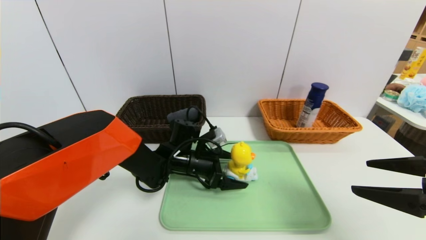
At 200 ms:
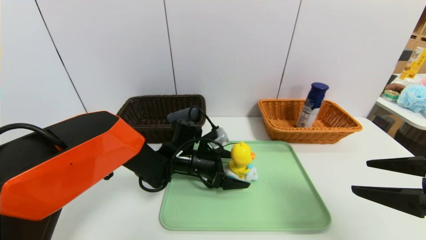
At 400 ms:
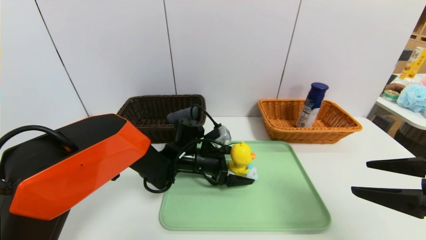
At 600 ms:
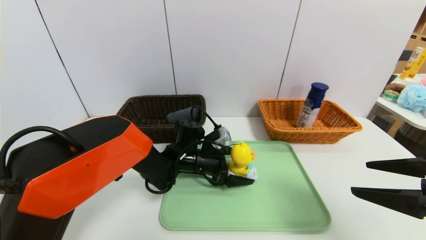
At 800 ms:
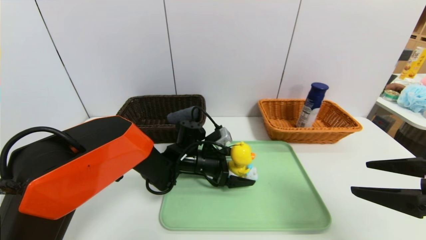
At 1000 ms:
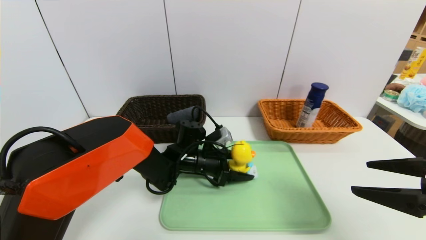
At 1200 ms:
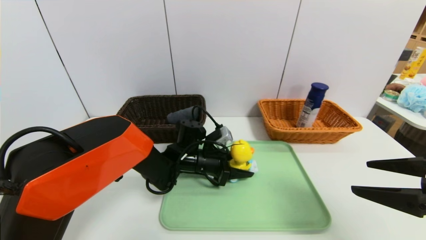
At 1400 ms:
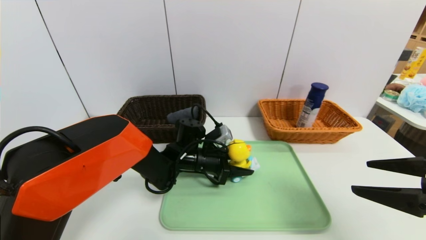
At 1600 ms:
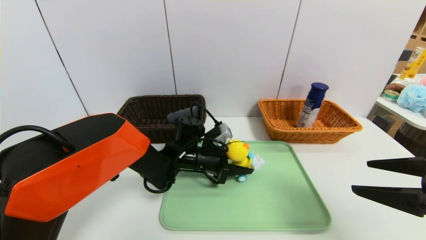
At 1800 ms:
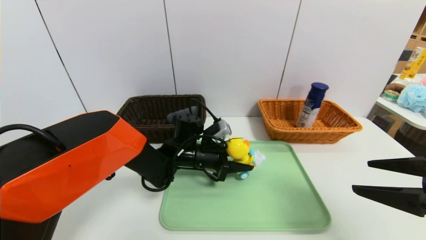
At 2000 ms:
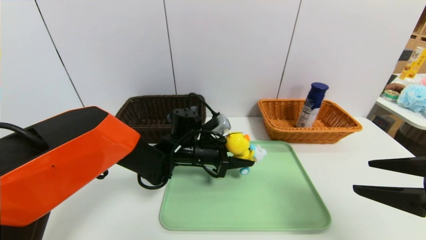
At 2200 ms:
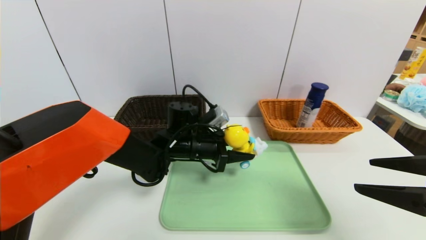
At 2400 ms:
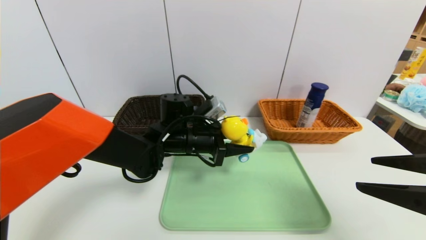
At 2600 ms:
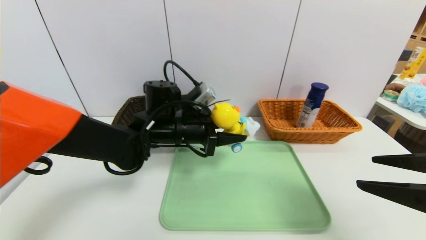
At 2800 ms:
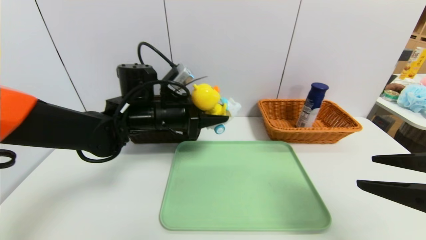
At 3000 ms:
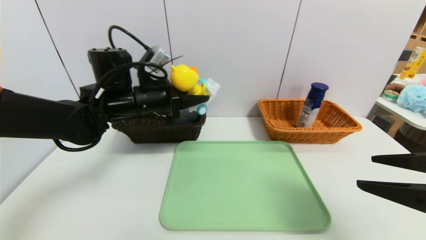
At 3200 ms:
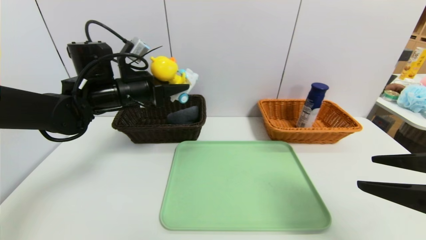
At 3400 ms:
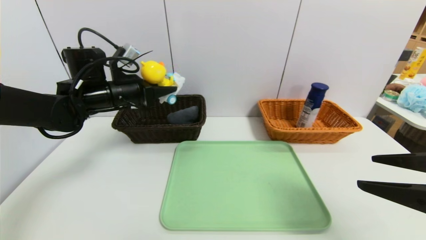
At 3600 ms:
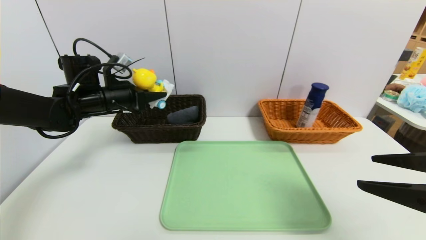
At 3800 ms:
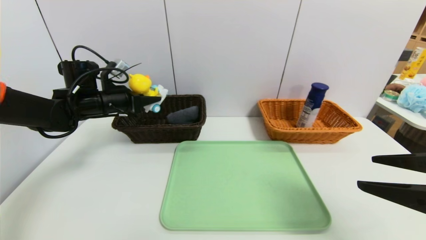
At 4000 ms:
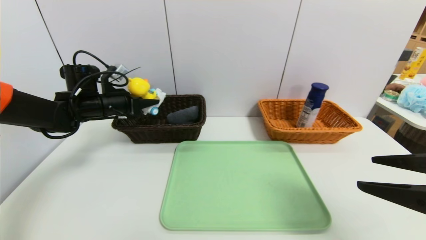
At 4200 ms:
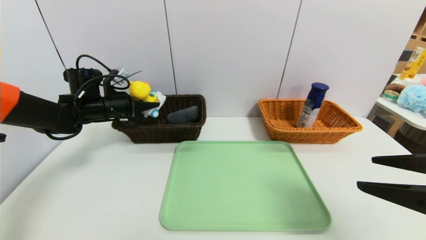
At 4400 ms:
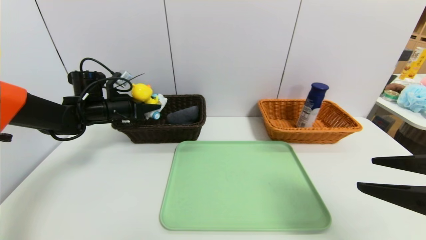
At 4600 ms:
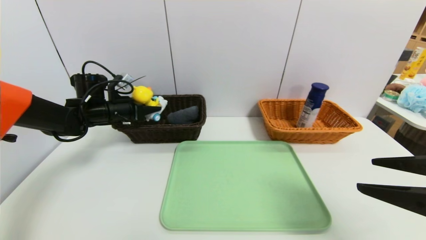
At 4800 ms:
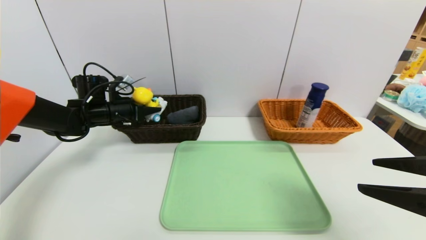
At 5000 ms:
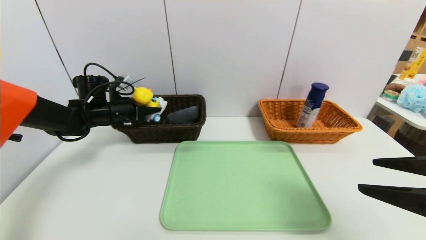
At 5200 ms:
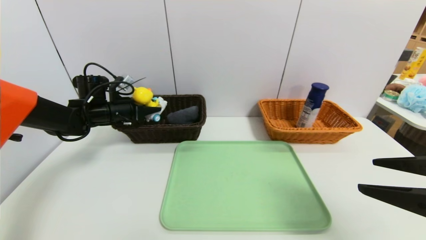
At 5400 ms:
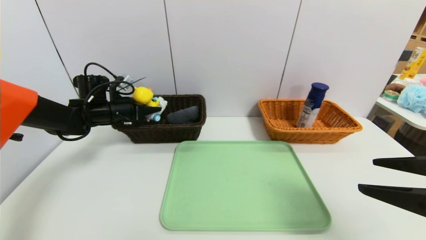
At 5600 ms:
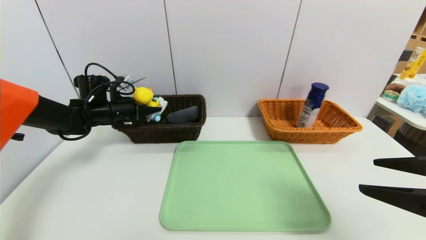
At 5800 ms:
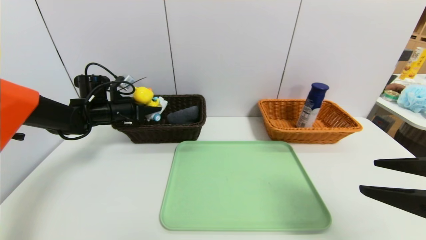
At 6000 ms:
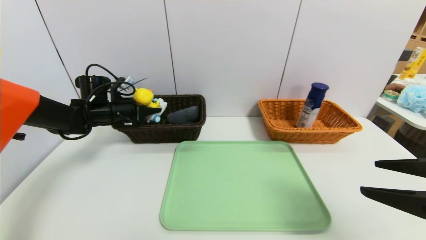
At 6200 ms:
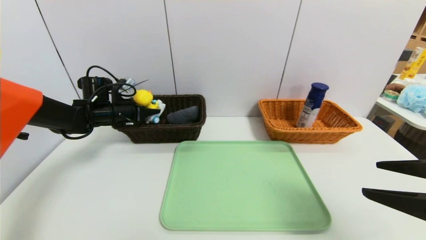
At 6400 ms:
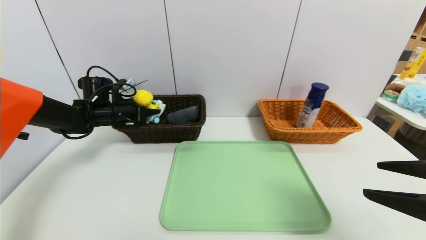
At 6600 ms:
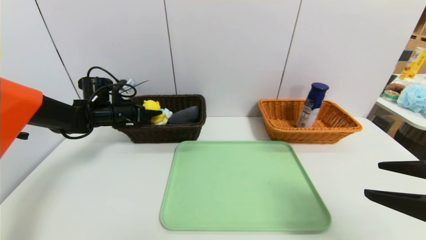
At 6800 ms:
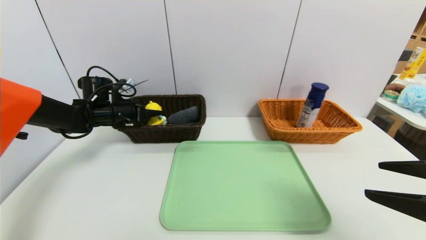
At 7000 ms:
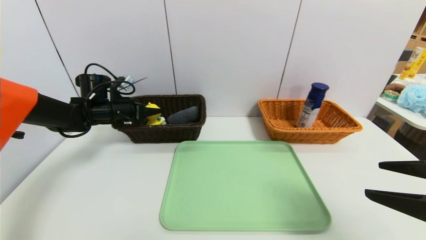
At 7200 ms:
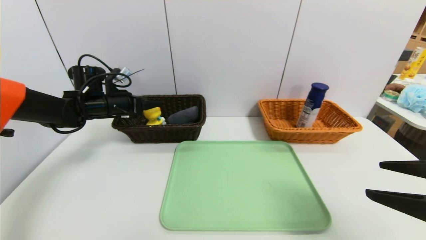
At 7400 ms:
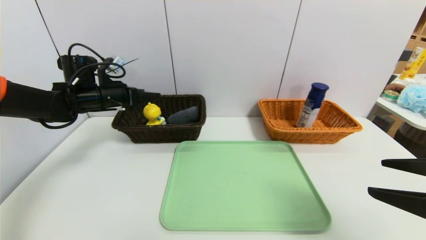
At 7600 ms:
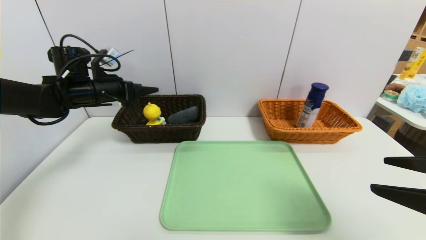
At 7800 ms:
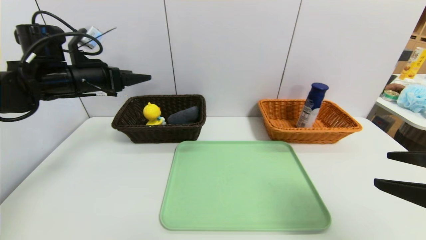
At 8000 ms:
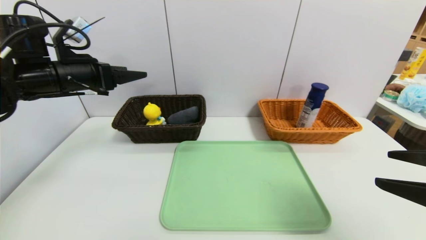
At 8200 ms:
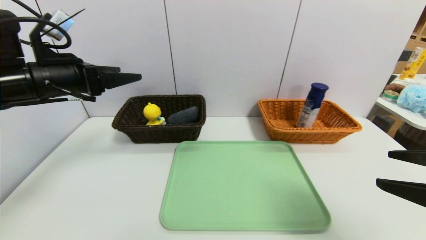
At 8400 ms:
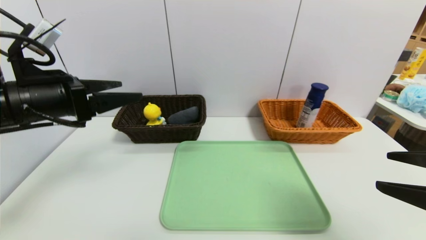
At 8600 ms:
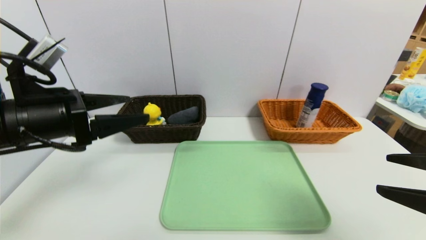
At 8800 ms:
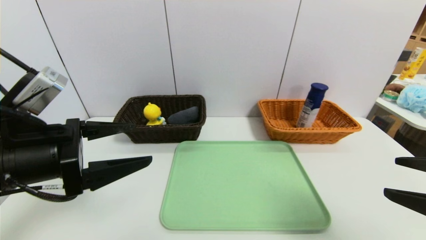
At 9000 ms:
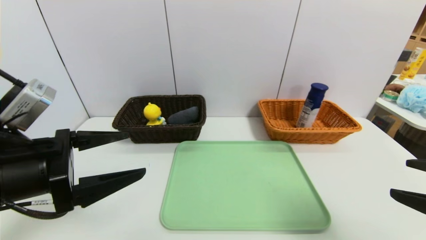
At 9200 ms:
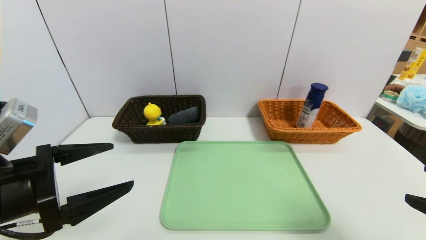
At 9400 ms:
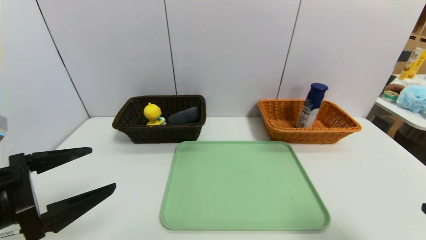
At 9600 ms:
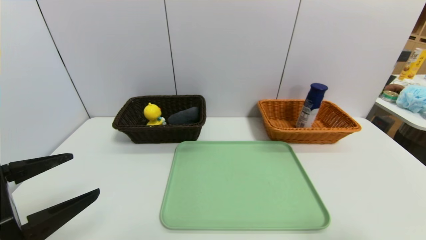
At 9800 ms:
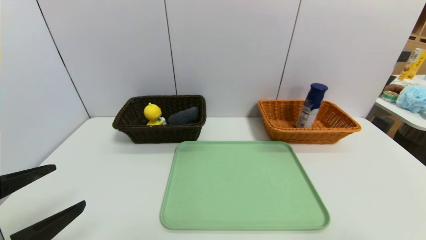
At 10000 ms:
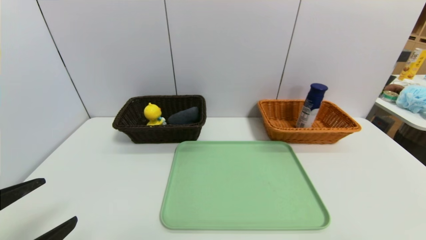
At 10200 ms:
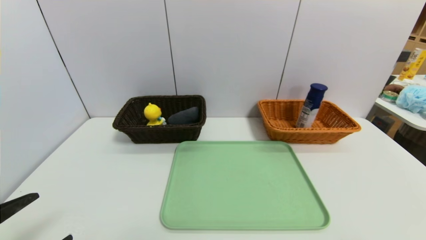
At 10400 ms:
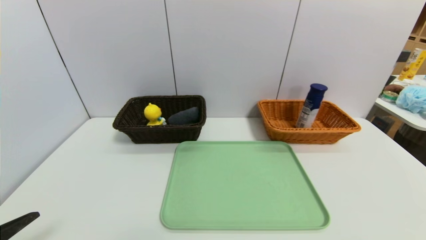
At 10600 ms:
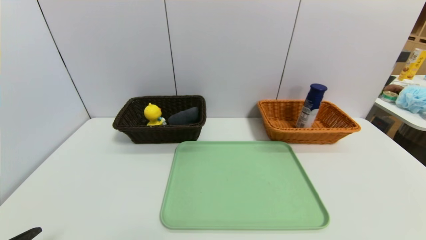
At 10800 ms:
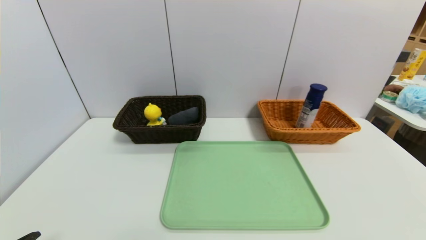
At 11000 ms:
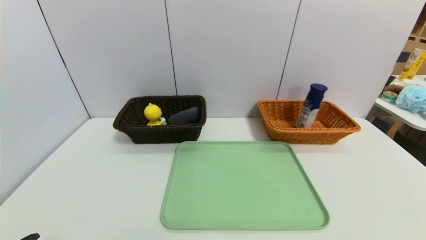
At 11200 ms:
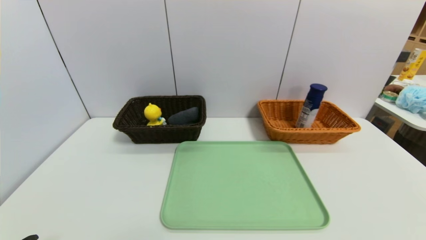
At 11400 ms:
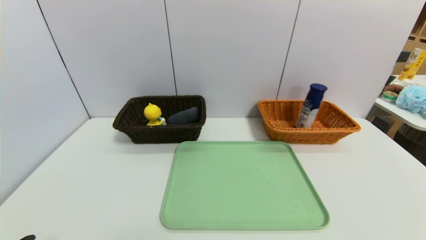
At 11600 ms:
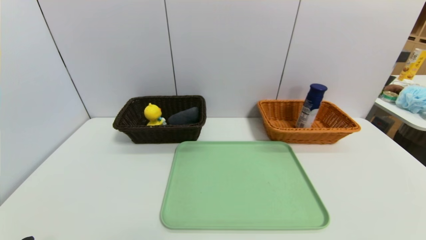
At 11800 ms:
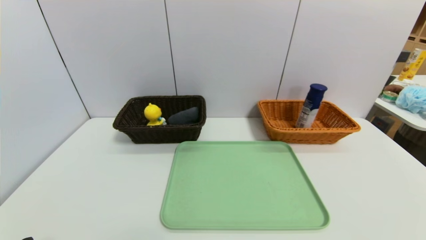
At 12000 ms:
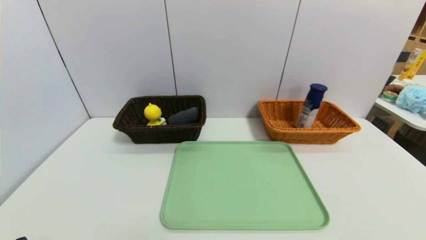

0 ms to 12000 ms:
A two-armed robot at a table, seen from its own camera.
Task of the whole recording: place the food in the right basket with the right gripper, and place the non food items in the left basket with the left gripper.
Step, 0 ms to 7000 ms: Grasp the yellow duck and put it in the left basket.
0 ms to 1600 ms: The left gripper closes up.
1600 ms to 3000 ms: The left gripper moves upward and to the left, approximately 20 cm.
3000 ms to 4400 ms: The left gripper goes roughly 15 cm to the left, forward and downward.
4400 ms to 6000 ms: The grippers stay close to where they were, moving slightly.
6000 ms to 7600 ms: The left gripper travels upward by roughly 10 cm, and opens.
7600 ms to 9000 ms: The left gripper heads backward, covering some 25 cm.
9000 ms to 10400 ms: The right gripper heads backward, covering some 10 cm. The left gripper shifts some 15 cm backward and downward.

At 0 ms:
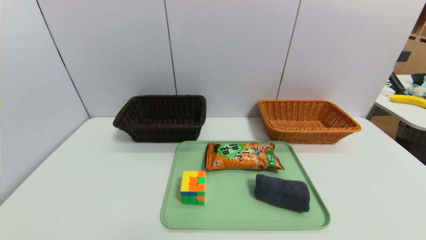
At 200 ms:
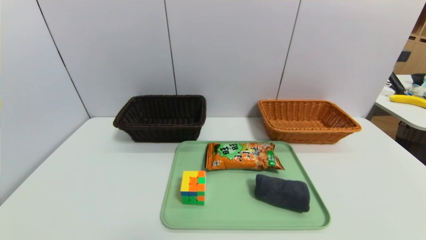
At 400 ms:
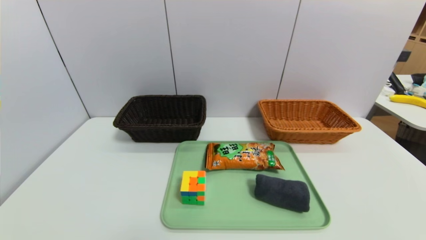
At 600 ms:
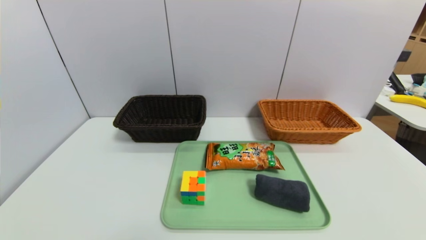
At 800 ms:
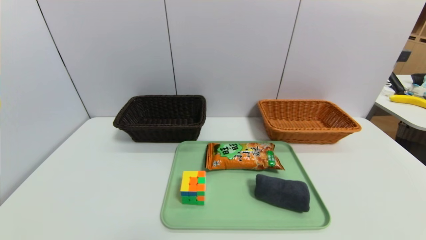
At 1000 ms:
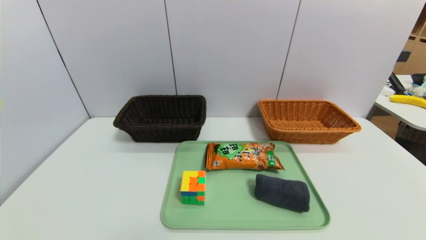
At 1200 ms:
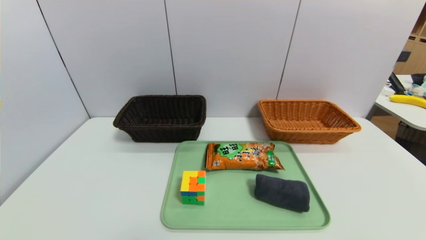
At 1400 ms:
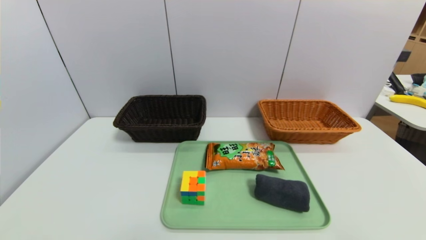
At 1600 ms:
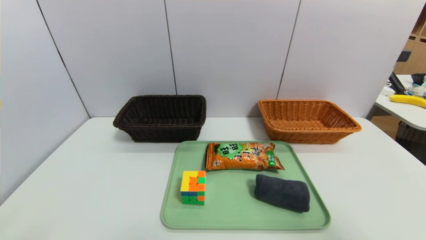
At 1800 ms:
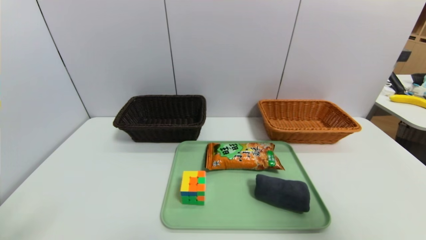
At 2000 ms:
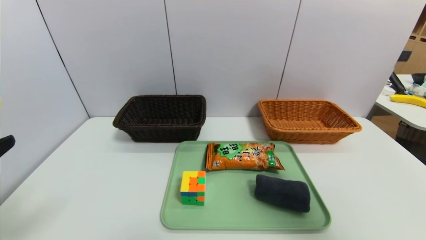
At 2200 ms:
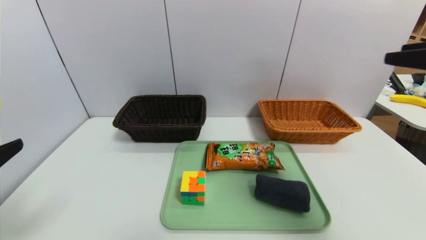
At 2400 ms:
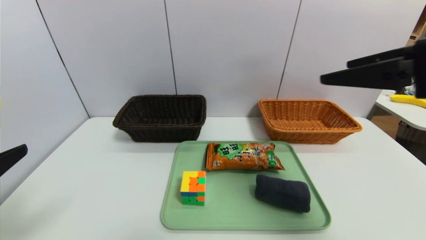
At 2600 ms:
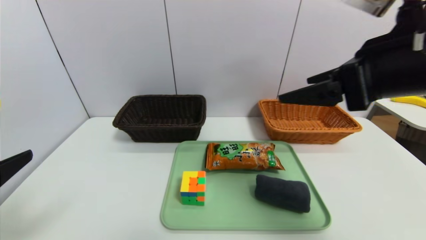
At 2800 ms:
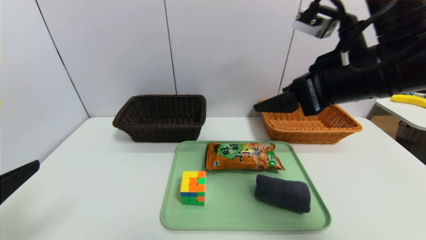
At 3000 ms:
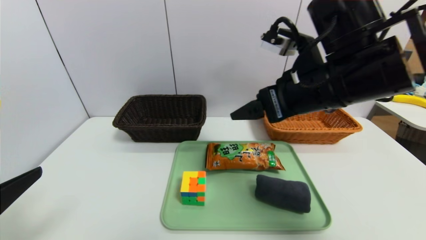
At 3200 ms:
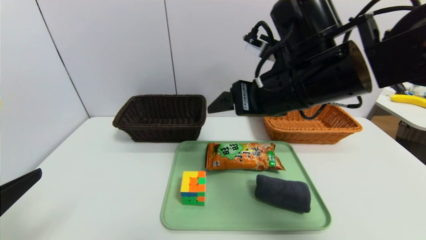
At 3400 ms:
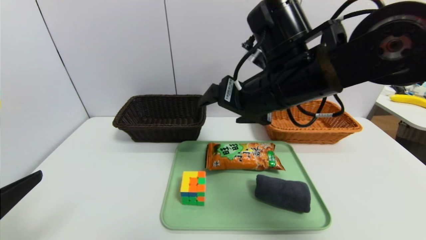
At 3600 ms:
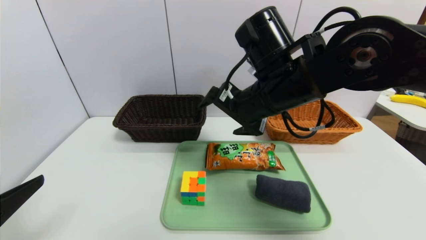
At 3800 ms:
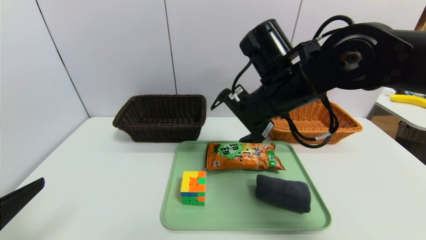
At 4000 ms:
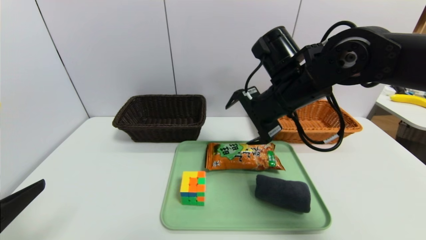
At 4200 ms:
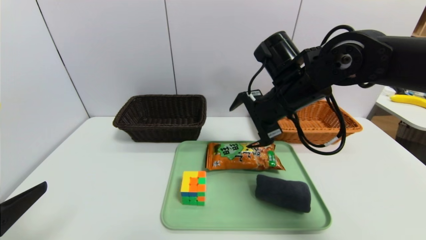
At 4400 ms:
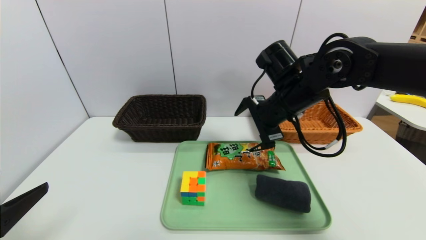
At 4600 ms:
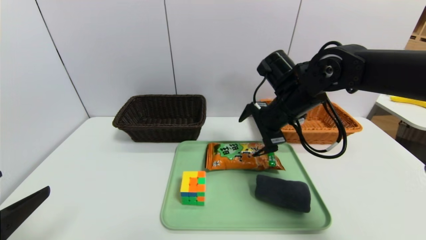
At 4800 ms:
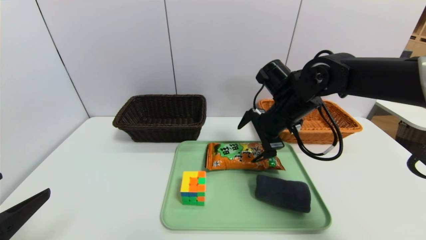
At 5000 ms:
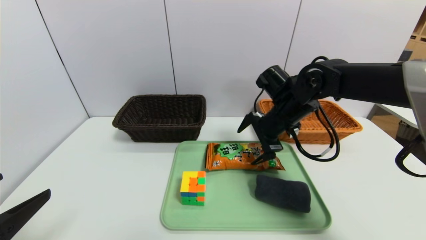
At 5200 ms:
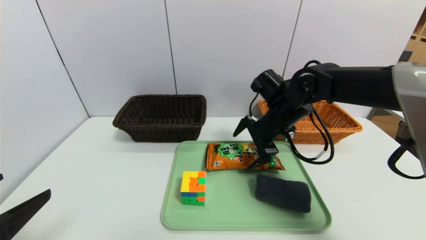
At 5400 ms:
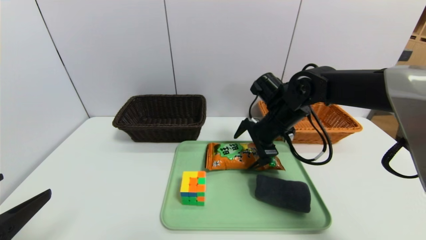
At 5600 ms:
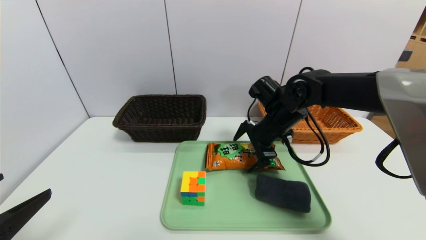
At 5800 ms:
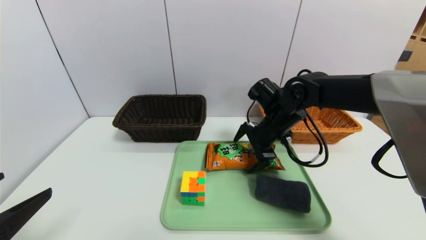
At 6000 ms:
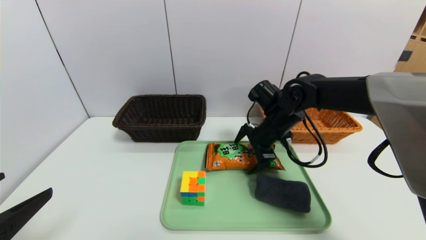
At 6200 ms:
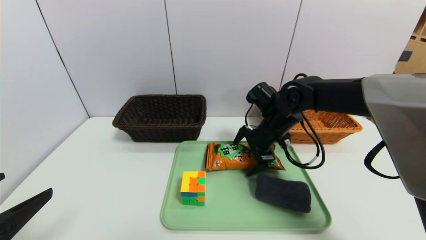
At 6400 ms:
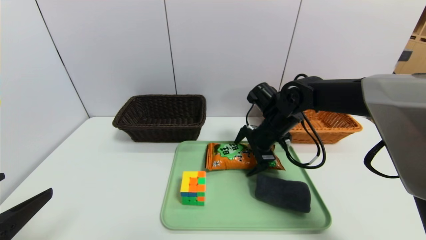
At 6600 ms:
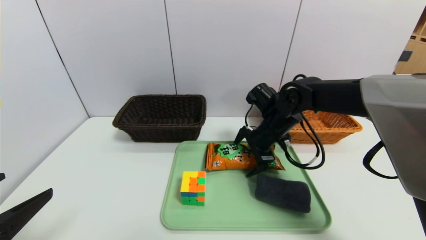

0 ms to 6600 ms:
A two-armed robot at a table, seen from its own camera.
Task of the whole recording: place the food in the right basket with the right gripper, and place the non food items in the left basket with the left gripper.
1600 ms to 3200 ms: The right gripper moves forward and to the left, approximately 35 cm; the left gripper is displaced forward by about 5 cm.
3200 ms to 5000 ms: The right gripper shifts approximately 15 cm downward and forward.
5000 ms to 6600 ms: The grippers make only small movements.